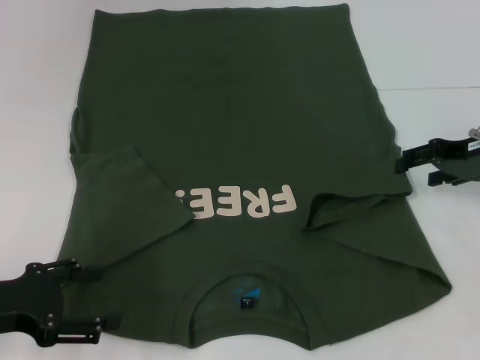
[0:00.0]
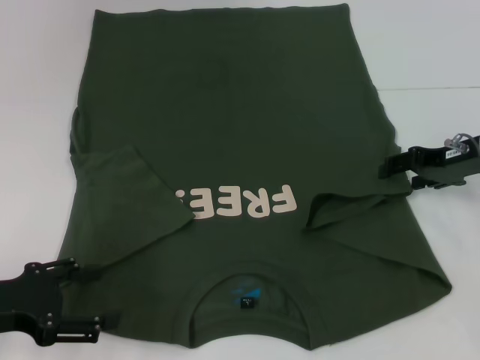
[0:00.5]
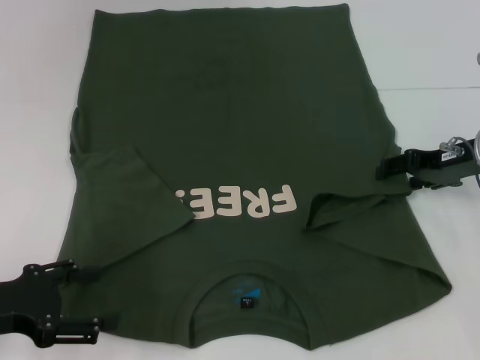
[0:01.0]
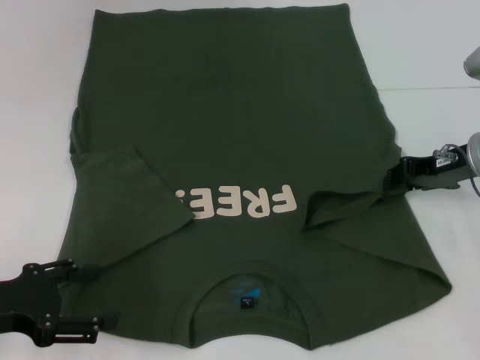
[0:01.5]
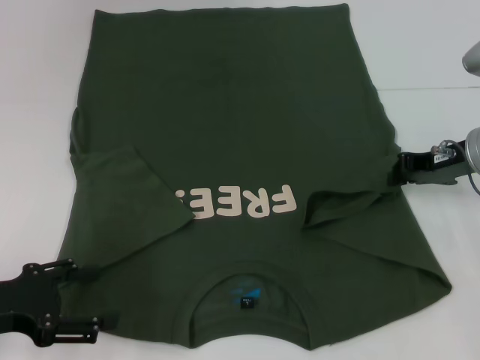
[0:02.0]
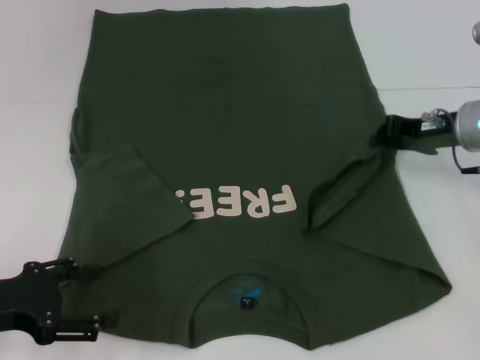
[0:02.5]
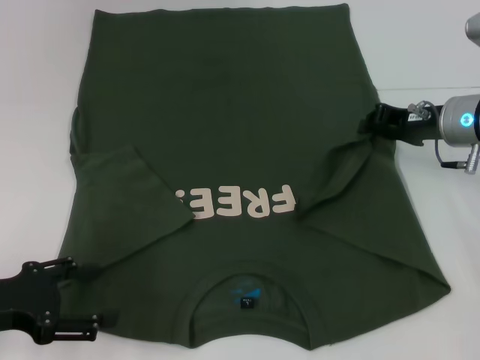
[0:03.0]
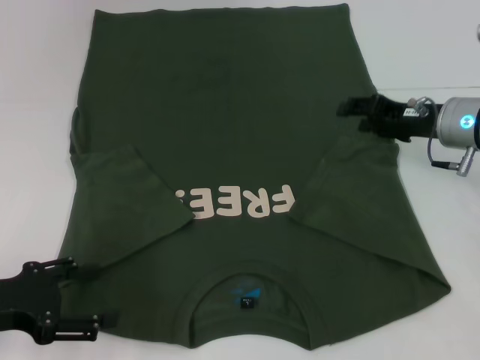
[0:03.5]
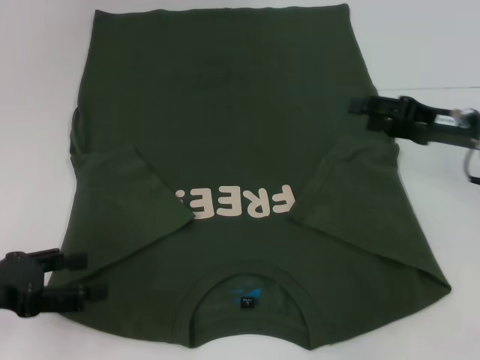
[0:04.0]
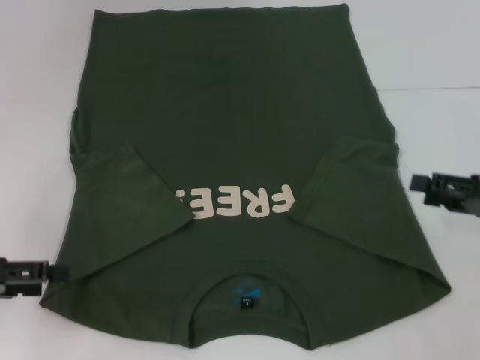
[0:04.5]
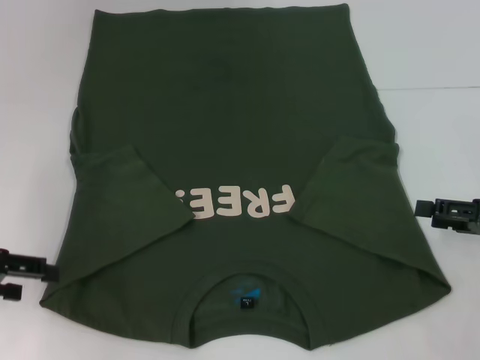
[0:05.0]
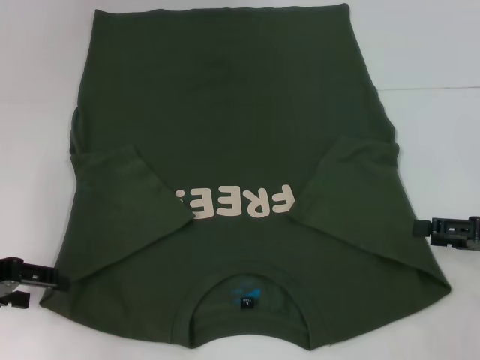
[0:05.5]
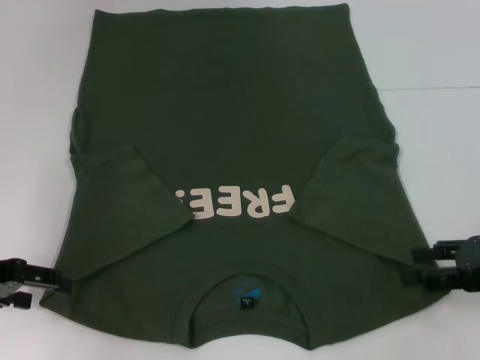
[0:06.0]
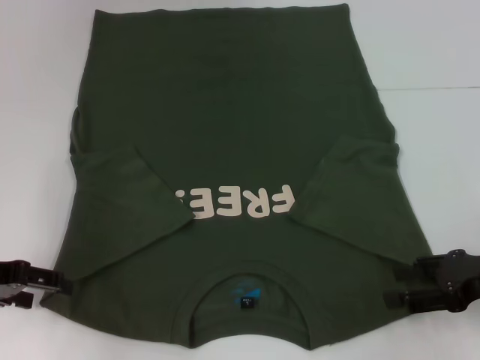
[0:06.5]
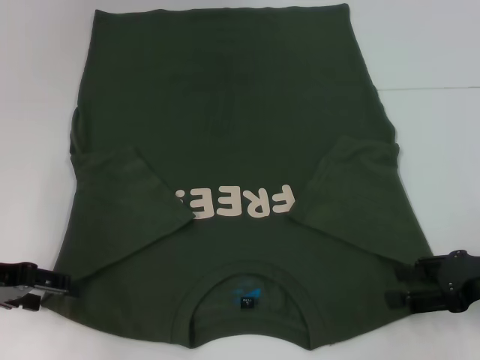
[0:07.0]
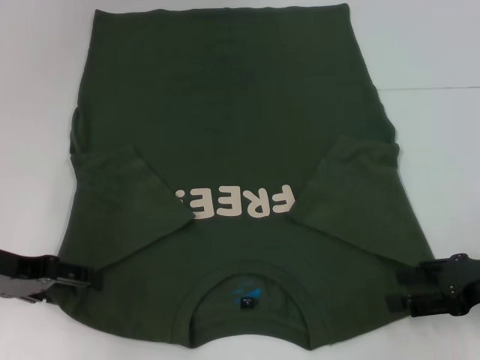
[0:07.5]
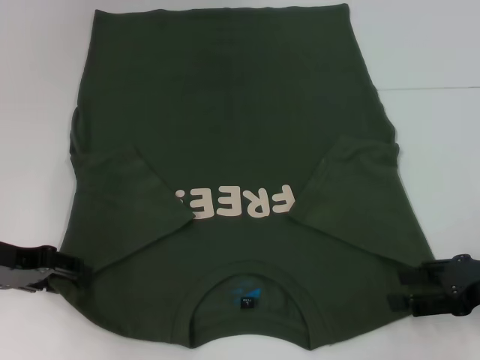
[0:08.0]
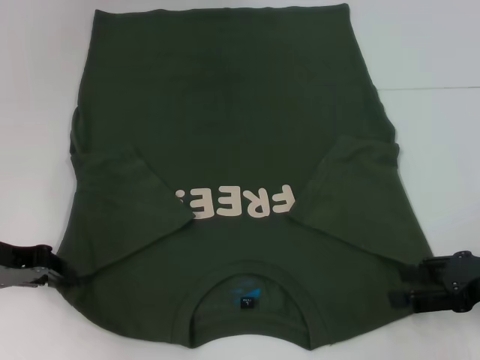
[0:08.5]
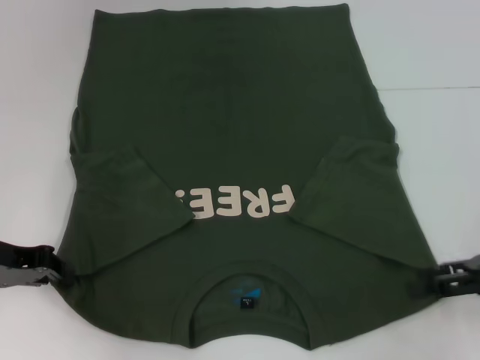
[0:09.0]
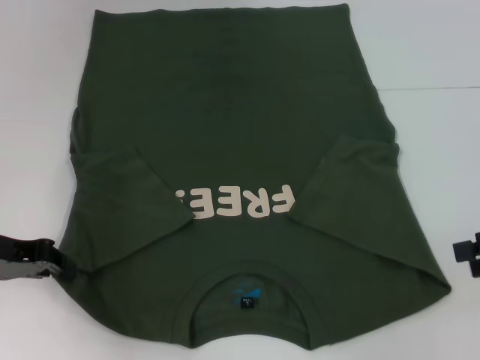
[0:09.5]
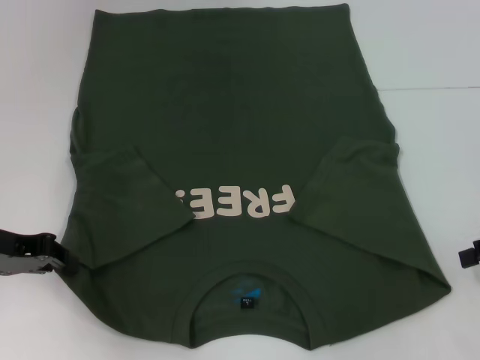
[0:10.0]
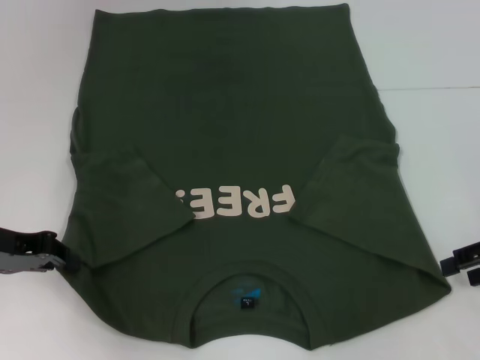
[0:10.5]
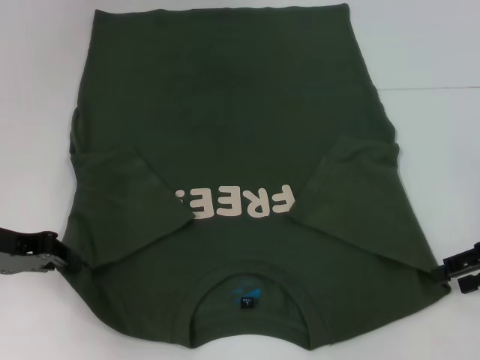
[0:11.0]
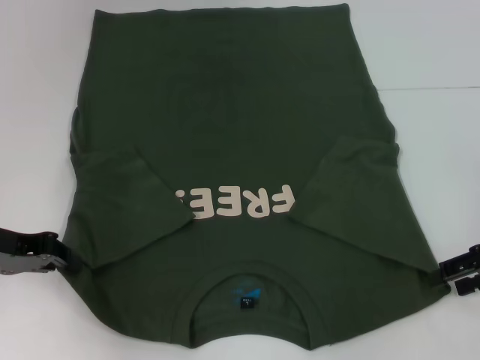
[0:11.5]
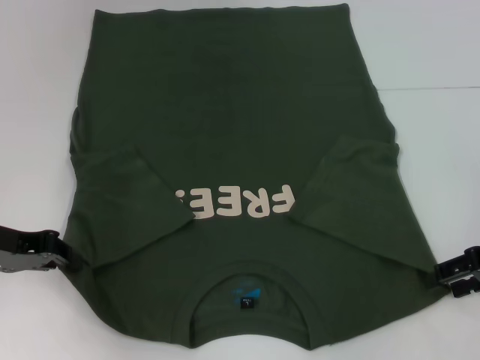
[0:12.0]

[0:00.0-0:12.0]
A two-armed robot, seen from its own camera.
Step, 0:00.0 to 0:03.0: Fold the bottom right sleeve with your right hand.
Step, 0:03.5 to 0:08.5: Grab the bottom left corner with your left hand.
0:00.0 to 0:02.0: The right gripper closes up.
0:02.0 to 0:04.0: The right gripper opens.
0:04.0 to 0:06.0: The left gripper is displaced forward by some 5 cm; the right gripper travels backward and to the right by about 10 cm.
0:06.0 to 0:08.0: The grippers stay close to where they were, moving slightly.
0:08.0 to 0:10.0: The left gripper closes. Meanwhile the right gripper is displaced upward and to the right by about 10 cm.
0:10.0 to 0:12.0: The grippers make only small movements.

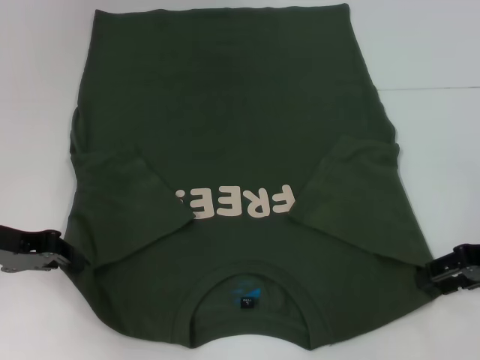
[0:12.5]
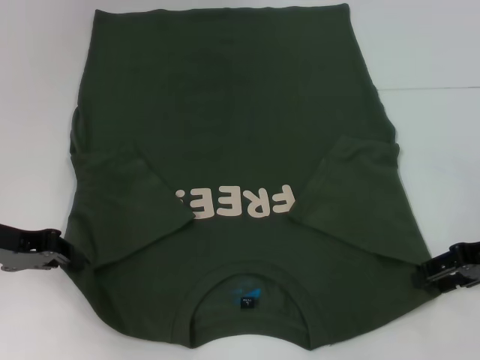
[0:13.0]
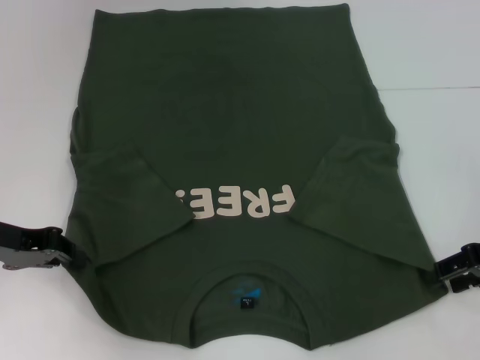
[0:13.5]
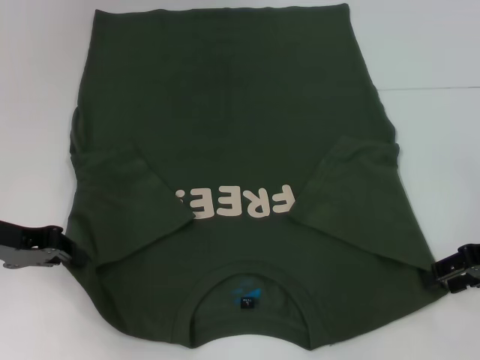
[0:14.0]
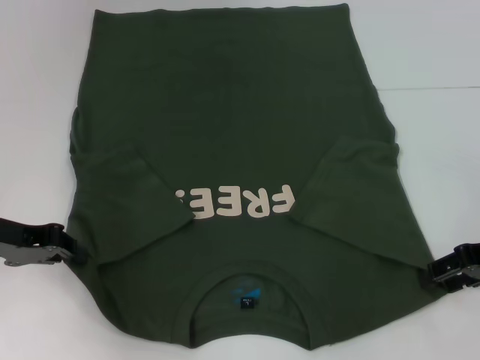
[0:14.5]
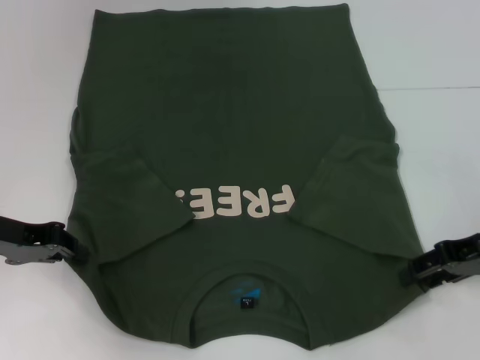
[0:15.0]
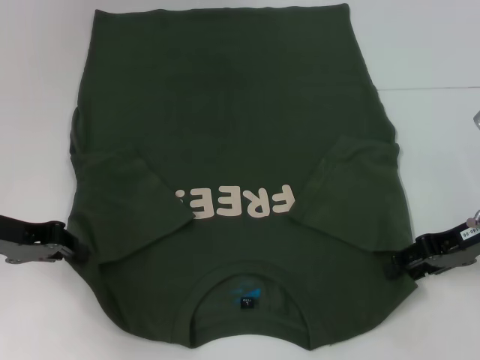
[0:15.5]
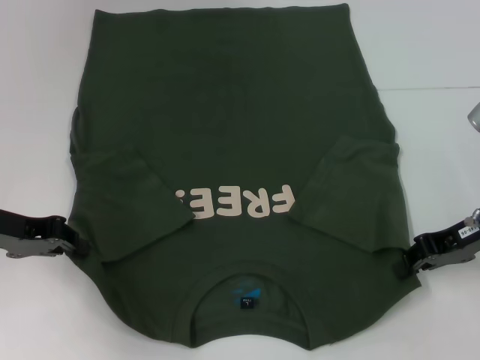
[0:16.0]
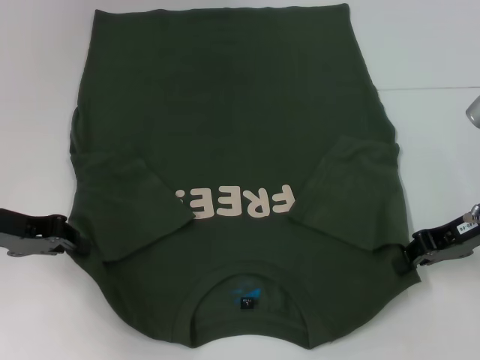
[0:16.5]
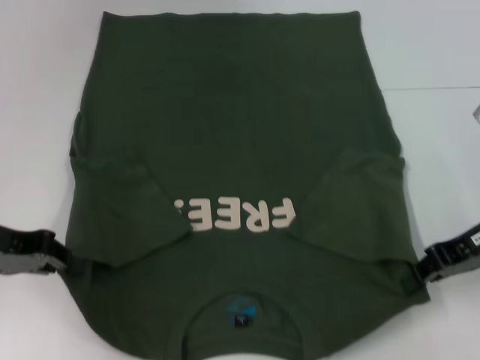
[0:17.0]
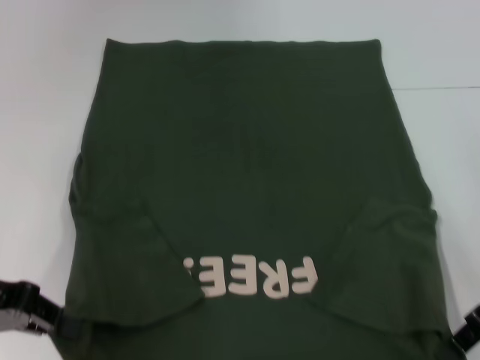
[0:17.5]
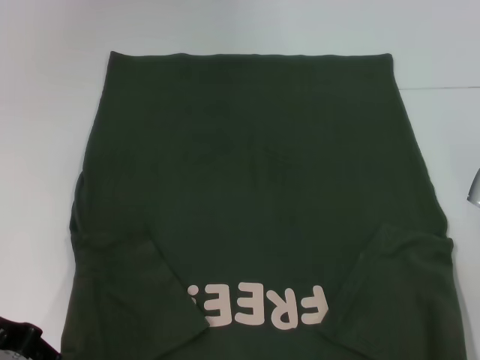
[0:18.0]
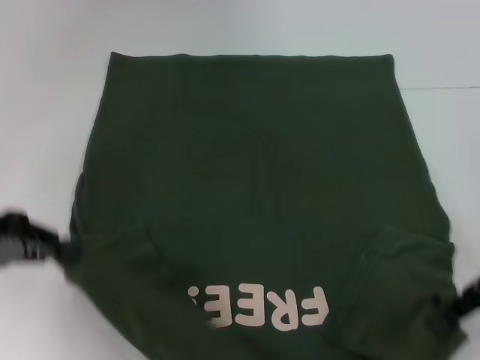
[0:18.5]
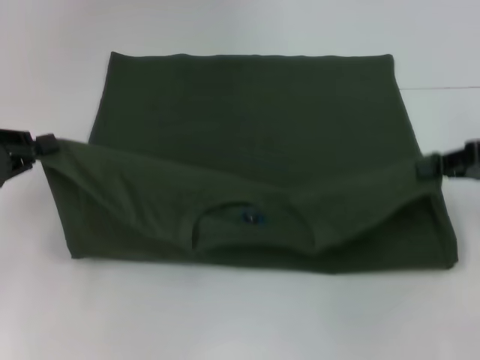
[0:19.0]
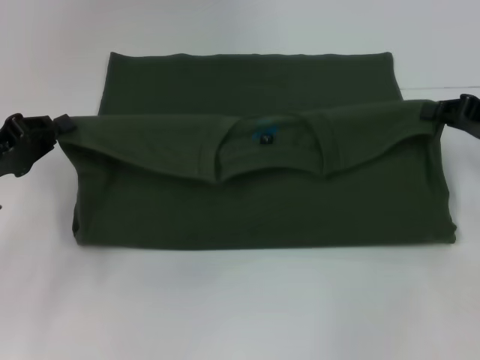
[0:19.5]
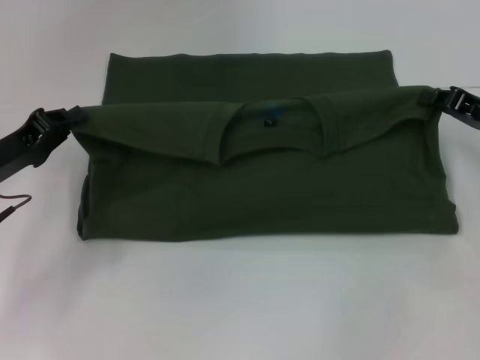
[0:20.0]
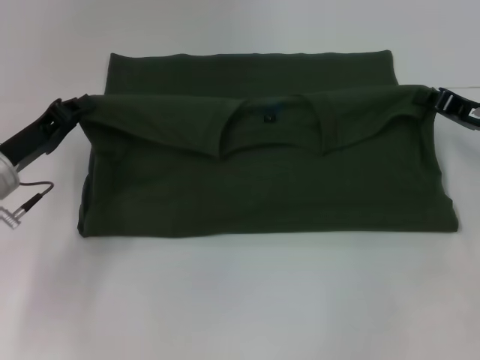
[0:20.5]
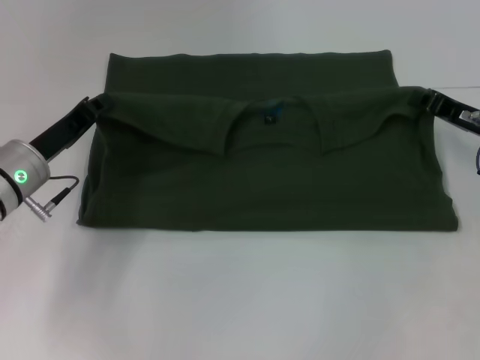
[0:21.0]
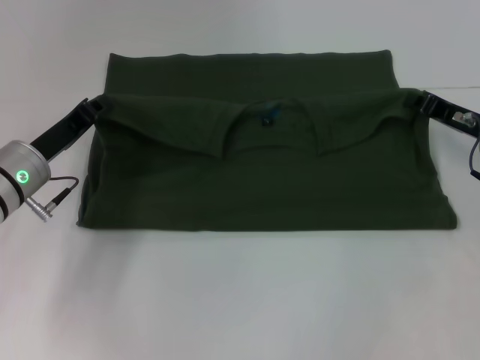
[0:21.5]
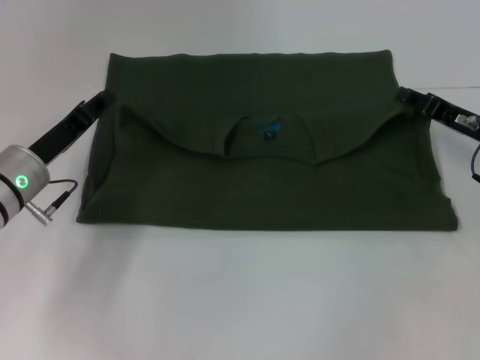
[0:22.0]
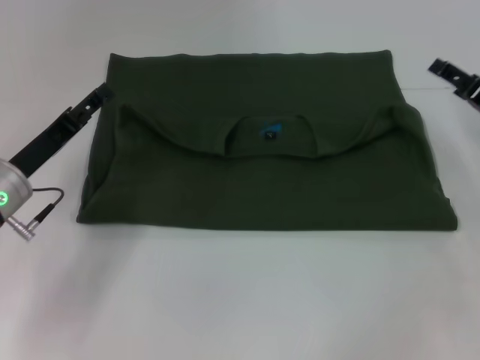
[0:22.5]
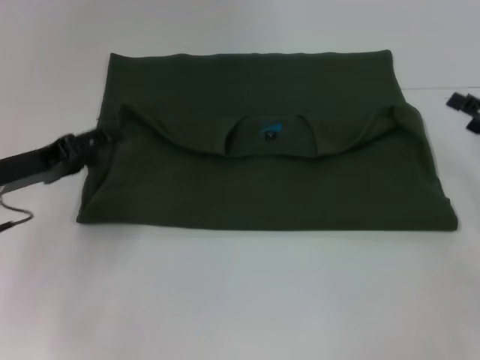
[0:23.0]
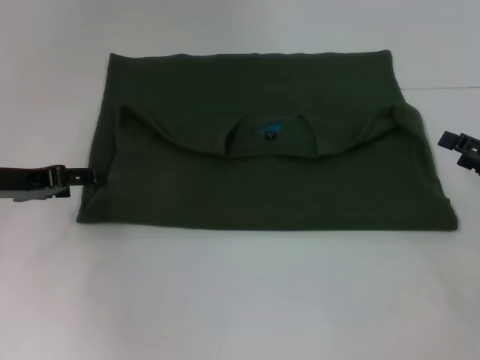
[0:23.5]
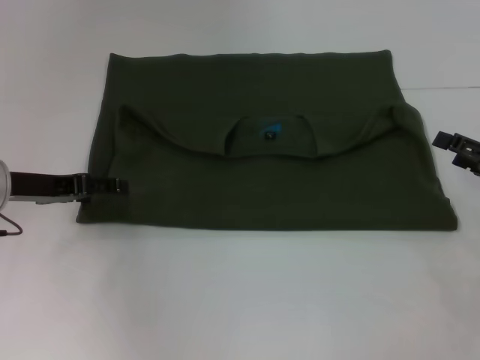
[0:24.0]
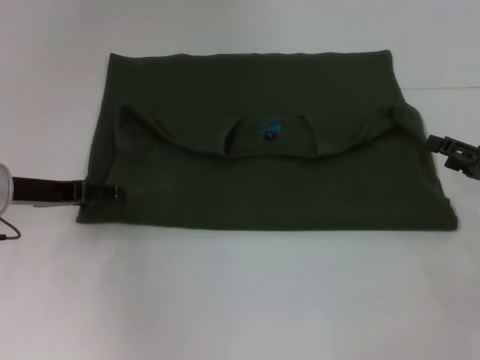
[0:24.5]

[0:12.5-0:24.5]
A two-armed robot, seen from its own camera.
Step, 0:12.5 to 0:16.5: Grab the bottom right corner with your right hand.
Step, 0:17.0 to 0:21.5: Fold the clothes with your left hand.
Step, 0:17.0 to 0:21.5: Fold the clothes with your right hand.
0:12.5 to 0:14.5: Both grippers stay put.
0:14.5 to 0:16.5: The right gripper closes.
0:16.5 to 0:18.5: The right gripper ends up some 5 cm from where it was. Meanwhile the left gripper moves approximately 5 cm.
0:18.5 to 0:20.5: The left gripper moves downward, forward and to the right, about 10 cm. The right gripper shifts about 10 cm forward and downward.
0:20.5 to 0:22.5: The left gripper opens. The right gripper opens its fingers.
0:22.5 to 0:24.5: The right gripper travels backward by approximately 5 cm.

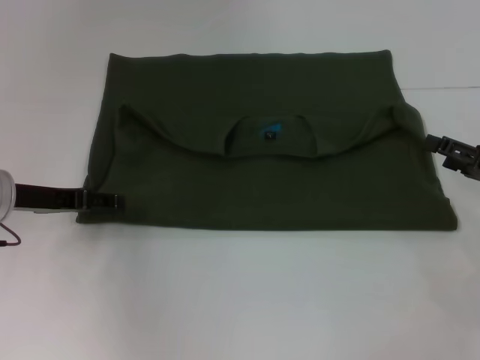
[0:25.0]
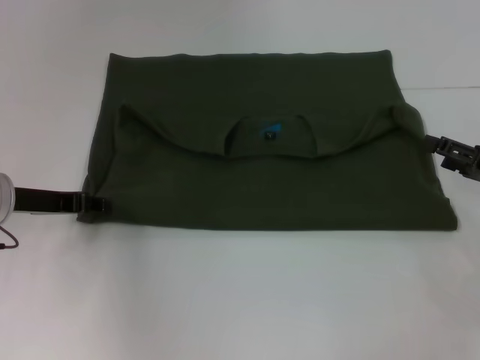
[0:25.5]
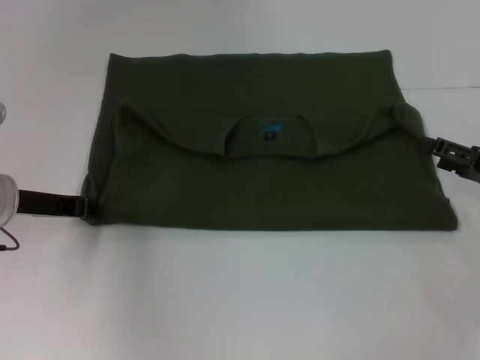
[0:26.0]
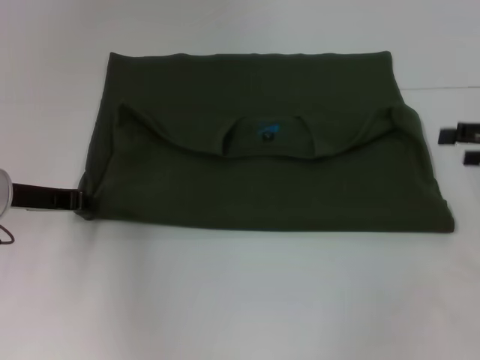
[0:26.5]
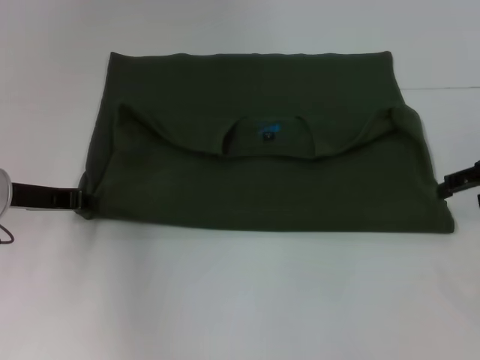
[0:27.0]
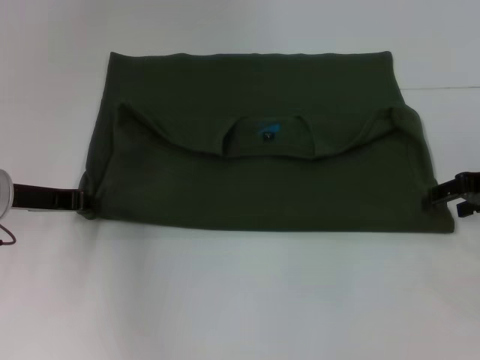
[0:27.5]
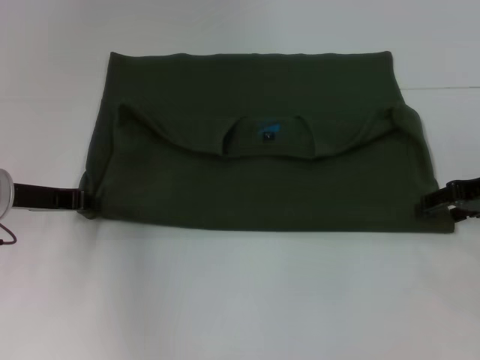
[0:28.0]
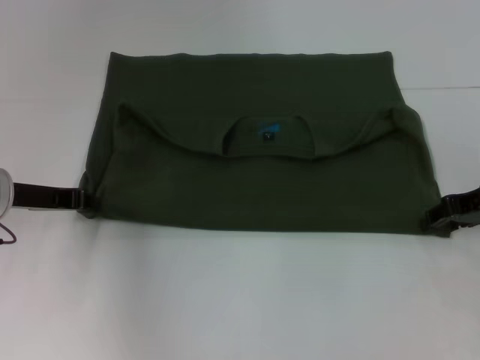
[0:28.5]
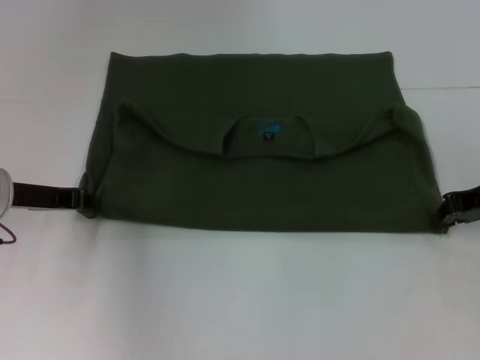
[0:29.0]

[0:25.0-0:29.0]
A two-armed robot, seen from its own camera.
0:25.0 to 0:27.0: The right gripper heads upward and forward, covering about 10 cm. The left gripper closes its fingers.
0:27.0 to 0:29.0: The right gripper closes up.
